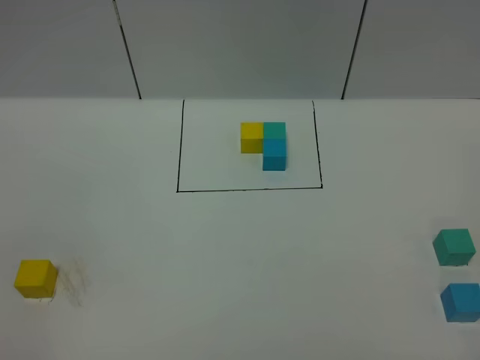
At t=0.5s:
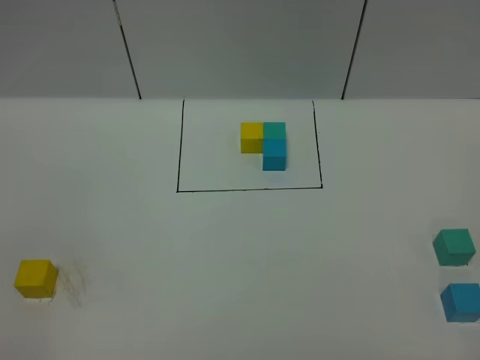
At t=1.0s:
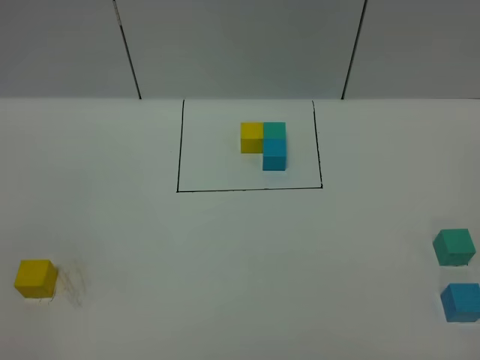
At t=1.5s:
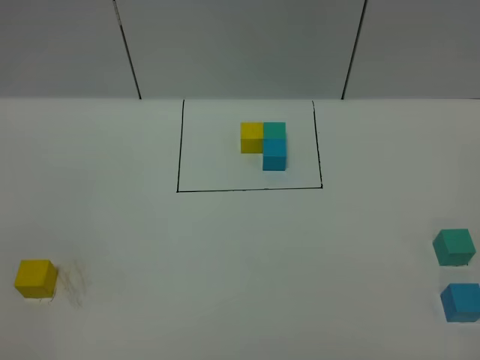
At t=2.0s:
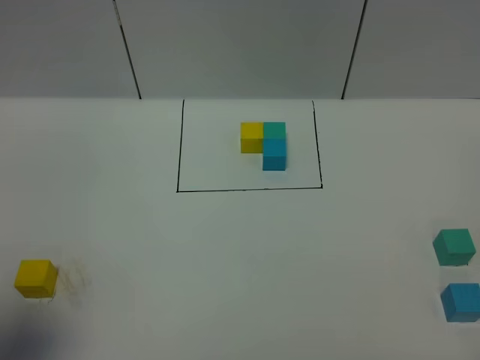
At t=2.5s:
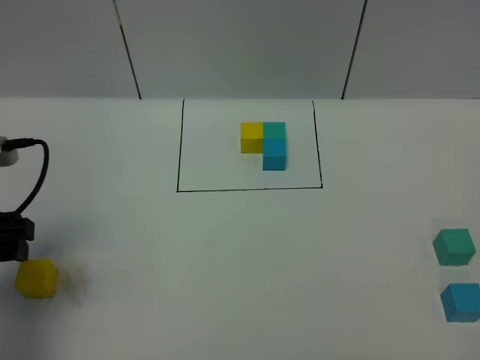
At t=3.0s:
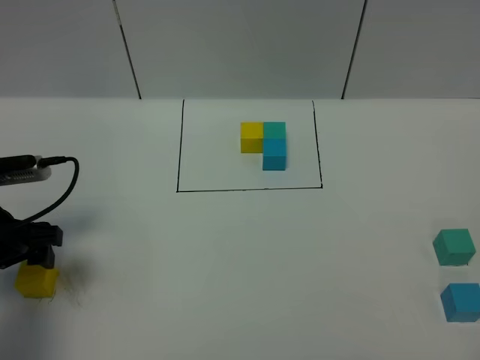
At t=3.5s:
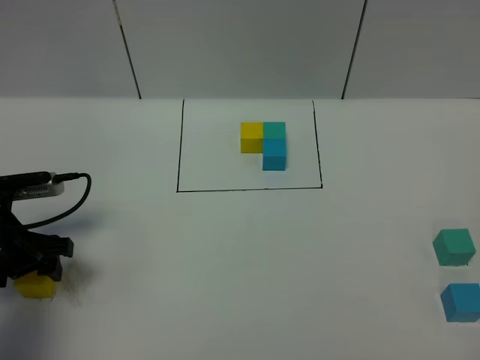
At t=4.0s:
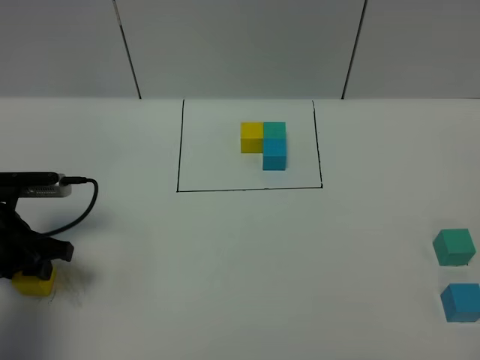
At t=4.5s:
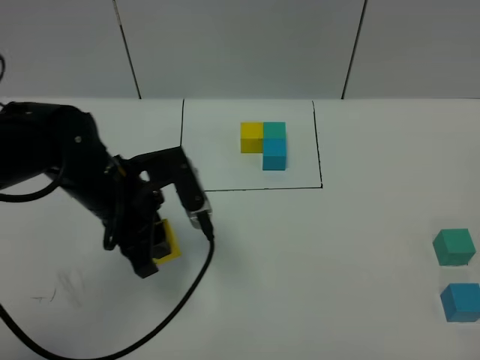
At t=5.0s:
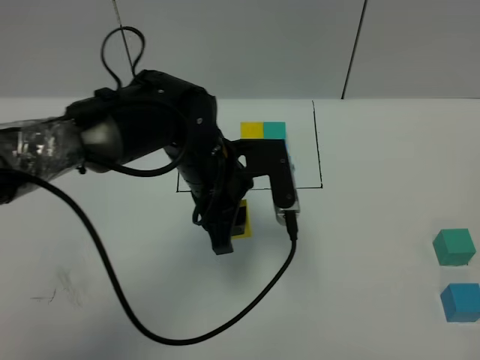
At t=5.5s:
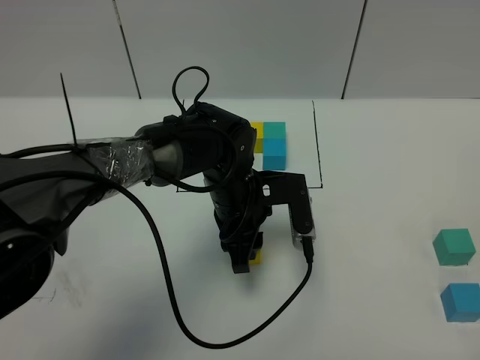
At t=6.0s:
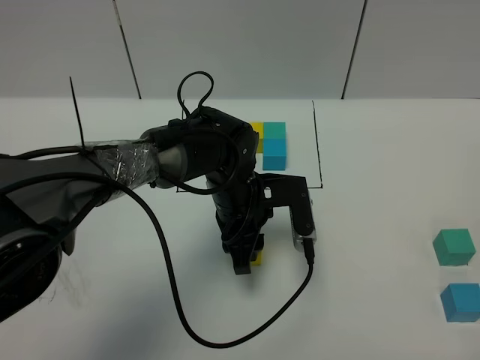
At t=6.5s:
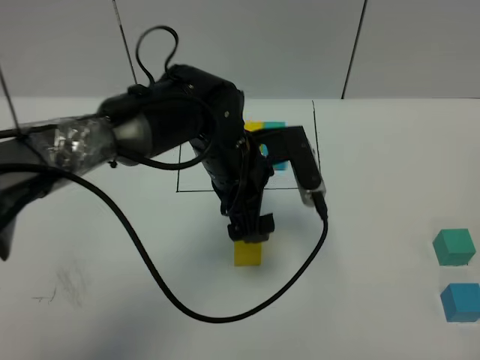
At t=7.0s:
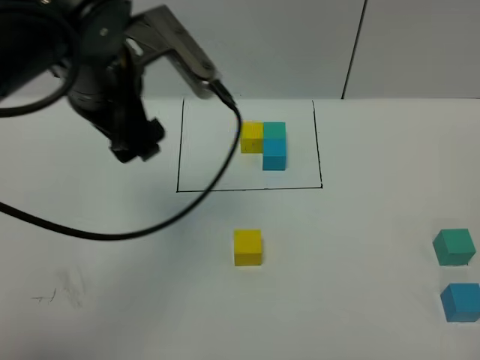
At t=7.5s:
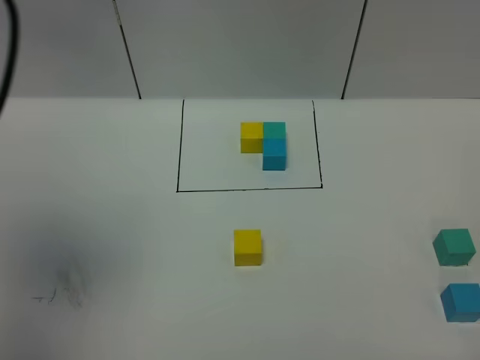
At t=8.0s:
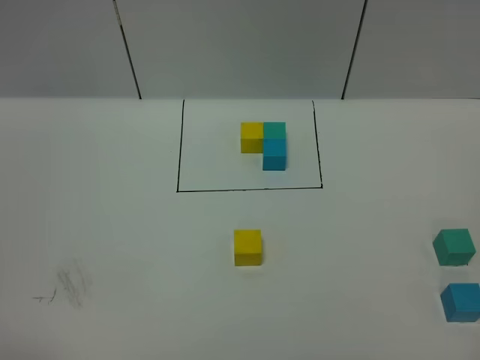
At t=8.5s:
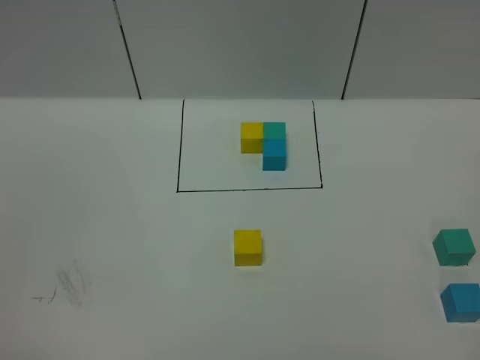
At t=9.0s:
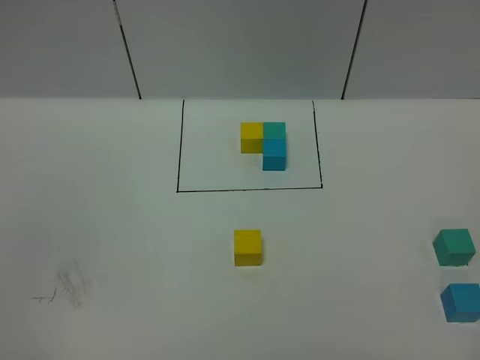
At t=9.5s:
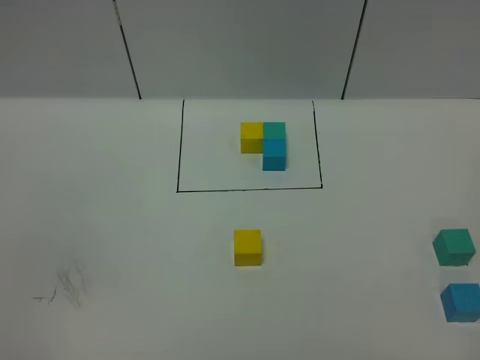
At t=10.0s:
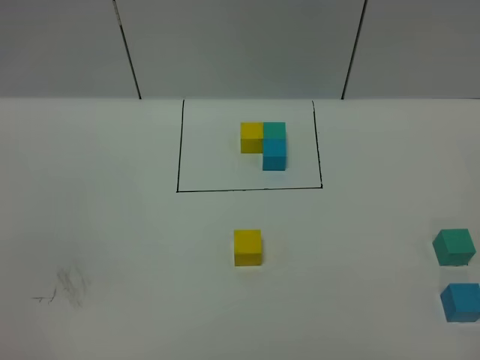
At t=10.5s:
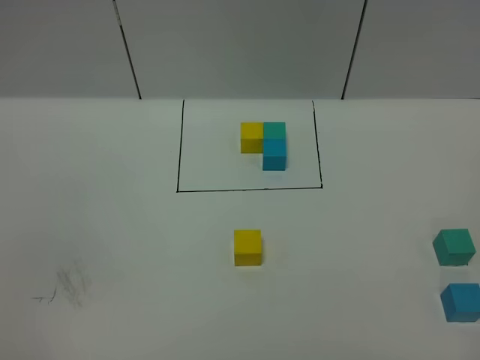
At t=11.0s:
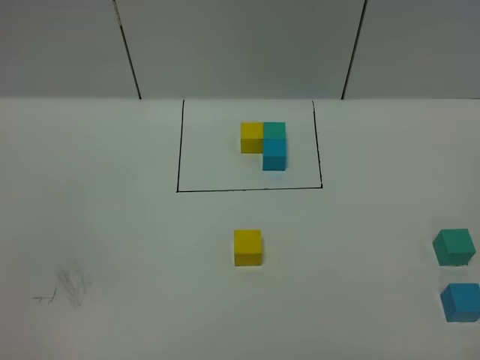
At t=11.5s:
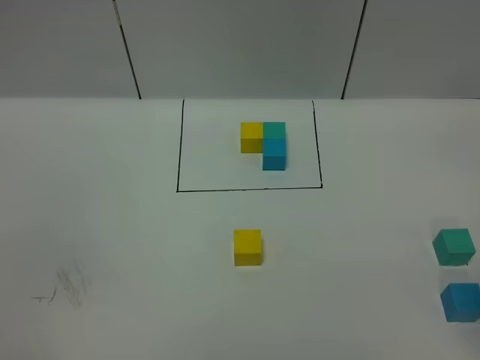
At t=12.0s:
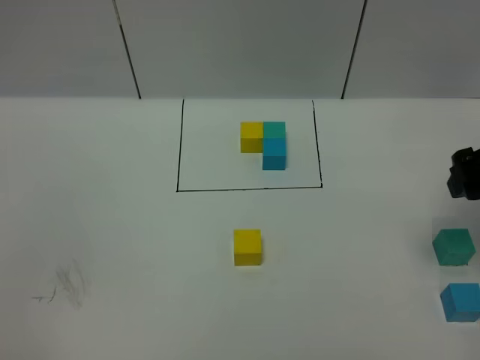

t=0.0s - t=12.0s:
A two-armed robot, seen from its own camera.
Task of the whole recording: According to the building block template in front, assemble the scattered blocks together.
Step, t=2.5s - t=6.0s: Put the yellow cube in the center of the table.
t=0.0s - t=2.0s: The left gripper travels forward and upward by some 15 cm.
t=2.0s - t=4.0s: The left gripper goes about 25 cm downward and forward, and closes up.
t=4.0s - t=6.0s: The left gripper goes approximately 30 cm to the right.
t=6.0s - t=8.0s: The left gripper is displaced backward, to the left and upward by roughly 60 cm, and opens its fingers.
t=10.0s - t=12.0s: The right gripper heads forward, covering roughly 30 cm, and opens.

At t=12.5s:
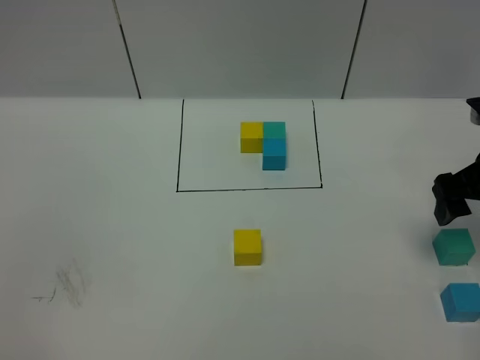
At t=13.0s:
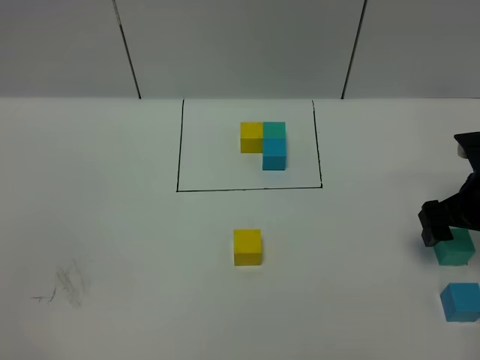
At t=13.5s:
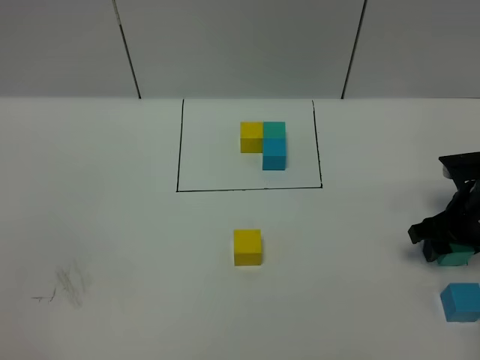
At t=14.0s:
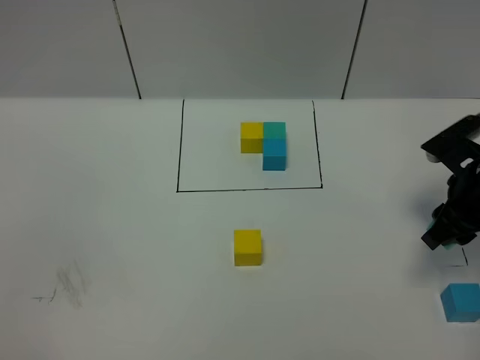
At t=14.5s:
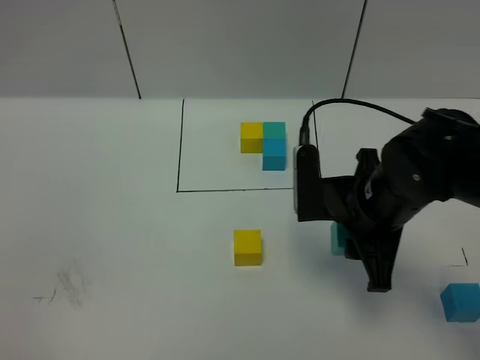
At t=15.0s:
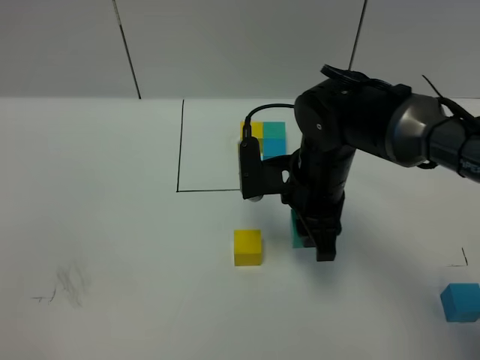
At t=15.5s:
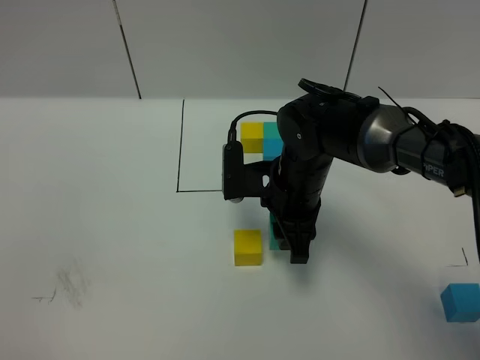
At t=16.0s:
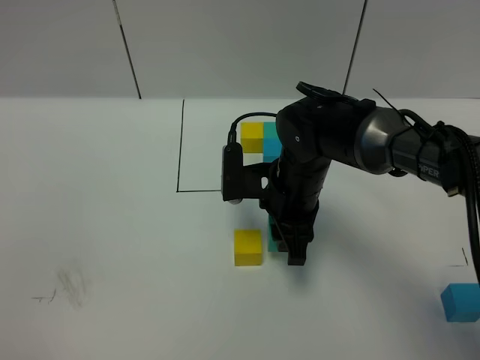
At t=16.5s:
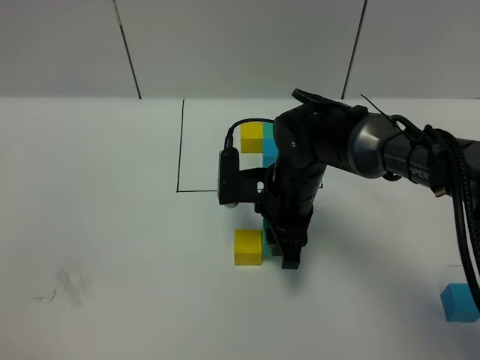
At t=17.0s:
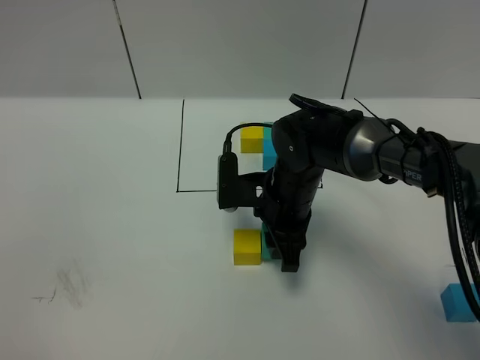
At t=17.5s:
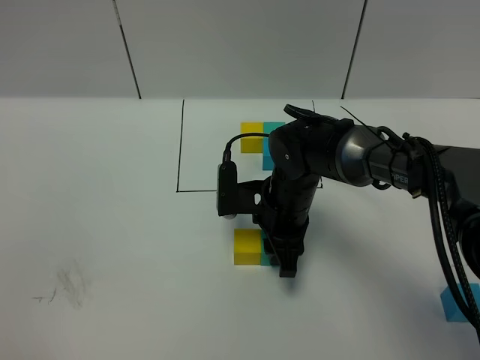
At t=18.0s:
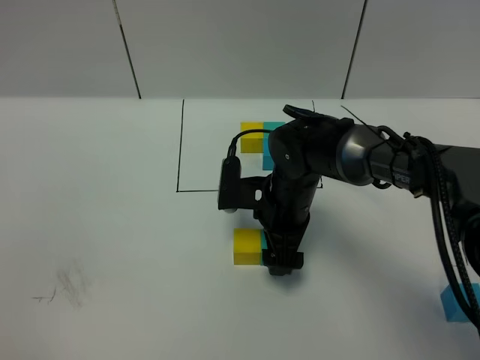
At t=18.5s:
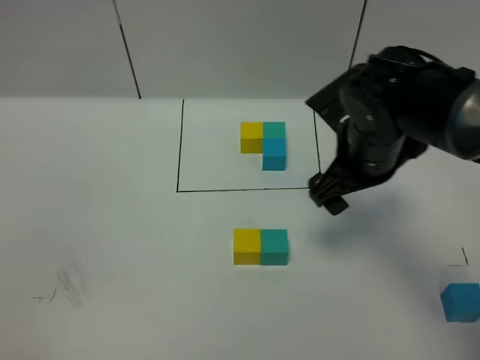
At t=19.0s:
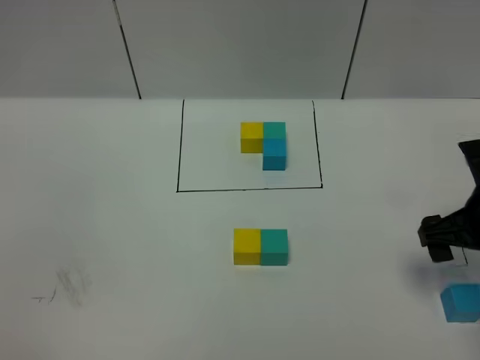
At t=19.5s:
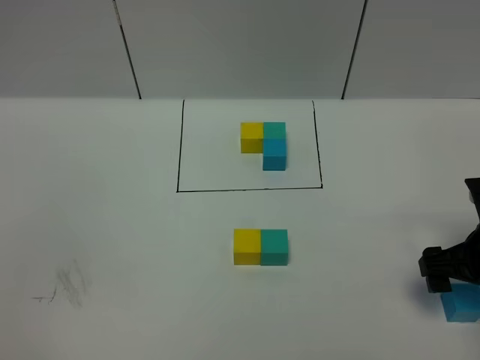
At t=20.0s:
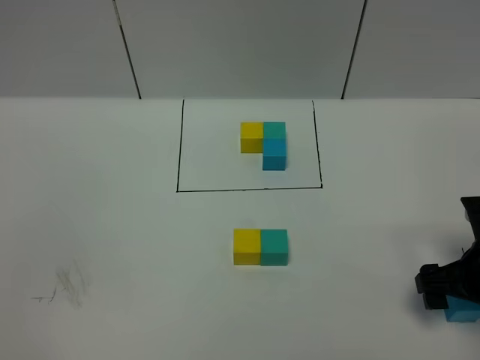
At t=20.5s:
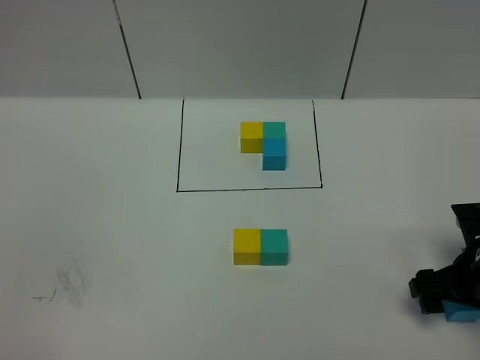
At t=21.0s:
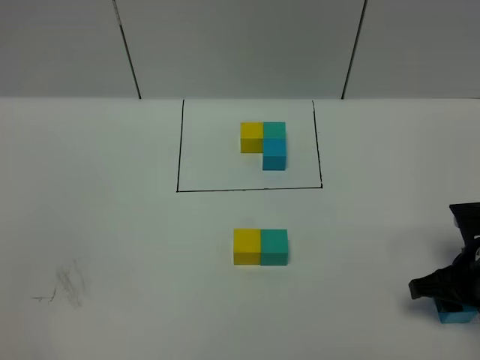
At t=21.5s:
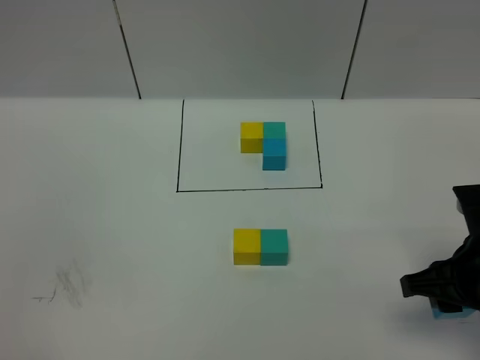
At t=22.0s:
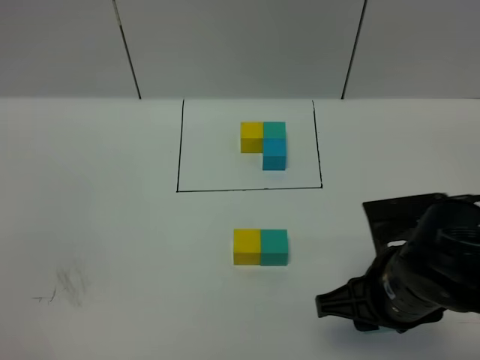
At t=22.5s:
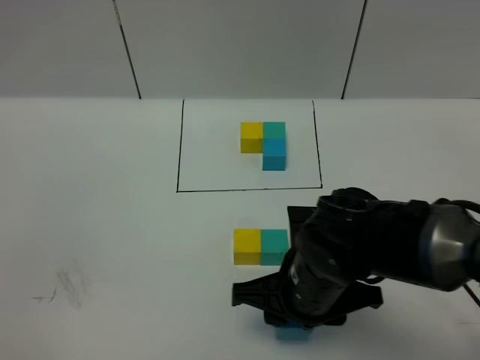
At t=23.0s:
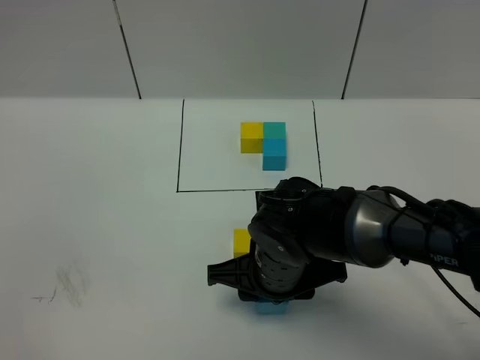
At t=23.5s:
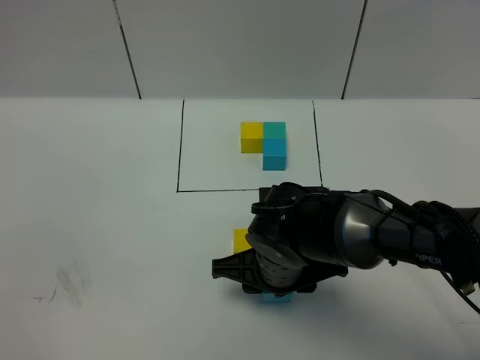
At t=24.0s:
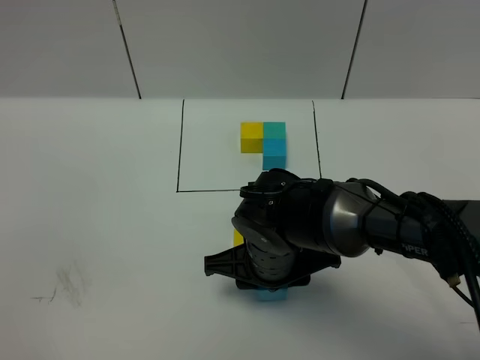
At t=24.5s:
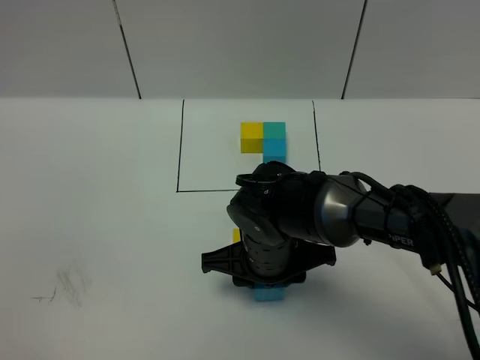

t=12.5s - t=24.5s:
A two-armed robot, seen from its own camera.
Task of the whole recording: According to the building block template in front, assemble the scattered blocks together.
Step, t=12.5s - t=17.5s: Put the green cube on the right of the yellow cube.
t=12.5s - t=14.5s: The right gripper moves to the left, about 15 cm, and closes its fingers.
t=14.5s - t=16.5s: The right gripper travels to the left, forward and downward by roughly 15 cm.
t=16.5s - t=18.5s: The right gripper travels to the right and upward by roughly 10 cm, and opens its fingers.
t=18.5s - t=20.5s: The right gripper is displaced to the right, downward and backward by roughly 20 cm.
t=20.5s - t=22.5s: The right gripper goes roughly 20 cm to the left, and closes.
t=22.5s - t=24.5s: The right gripper heads forward, covering about 5 cm.

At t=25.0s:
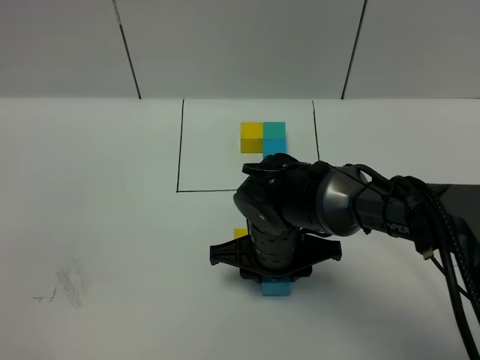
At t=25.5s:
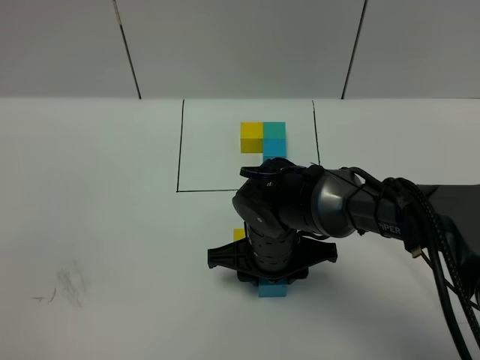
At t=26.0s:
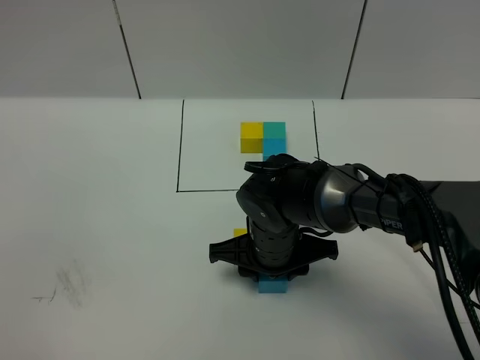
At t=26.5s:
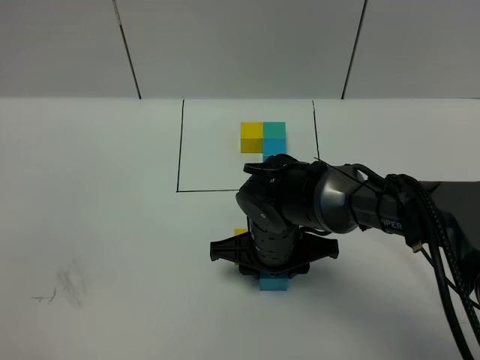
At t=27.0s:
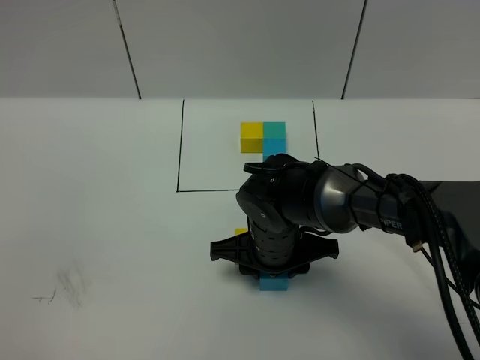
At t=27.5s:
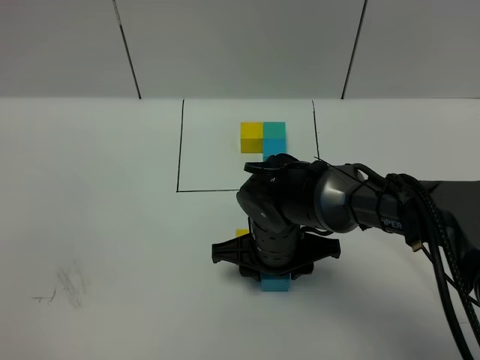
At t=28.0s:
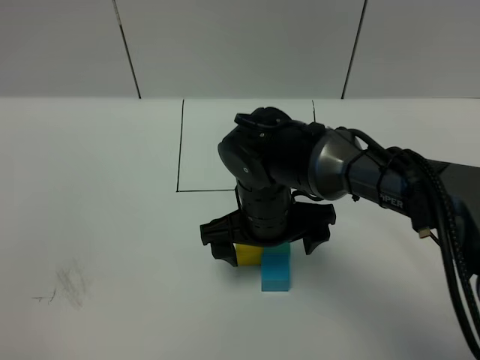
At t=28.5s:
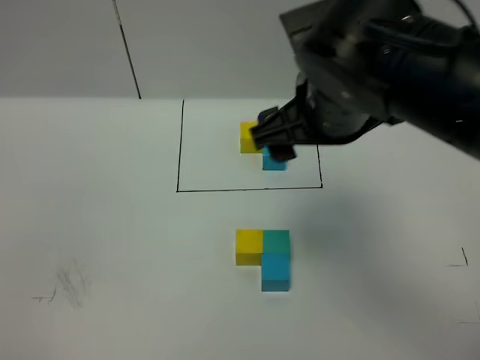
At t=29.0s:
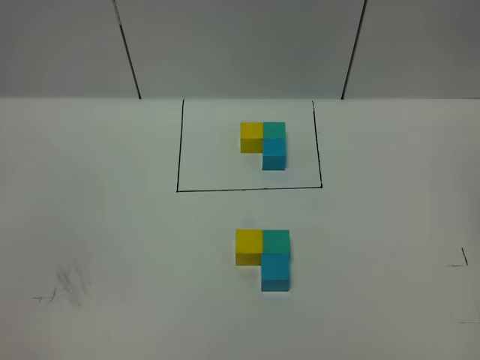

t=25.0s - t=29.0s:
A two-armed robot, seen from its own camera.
Task of the whole recording: According to the building block template in front, assemble the scattered blocks together.
Step, t=25.0s - t=27.5s: Put the blue cube in the front of the green cube.
t=25.0s - t=27.0s: Both grippers stay put.
t=27.0s - t=29.0s: The right gripper shifts roughly 50 cm upward and to the right, and opens.
